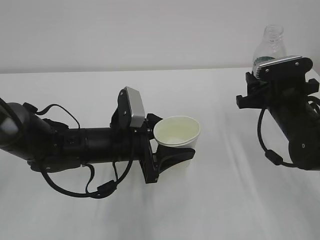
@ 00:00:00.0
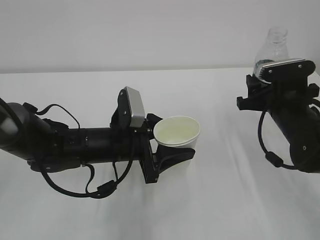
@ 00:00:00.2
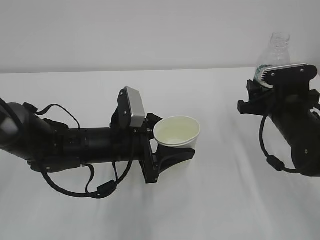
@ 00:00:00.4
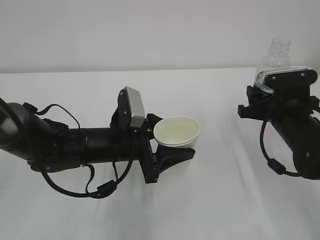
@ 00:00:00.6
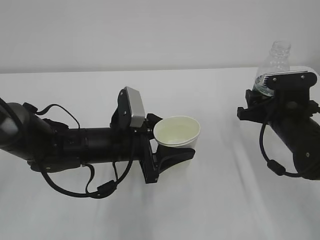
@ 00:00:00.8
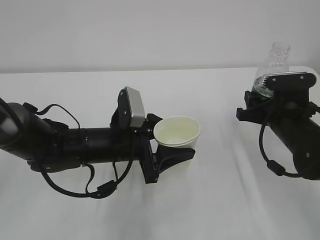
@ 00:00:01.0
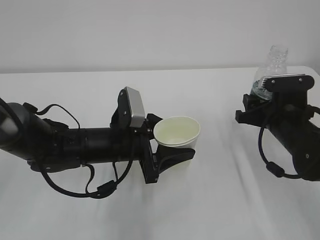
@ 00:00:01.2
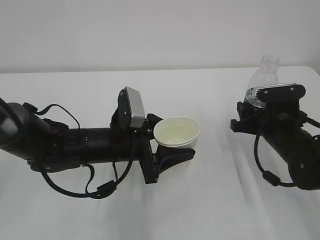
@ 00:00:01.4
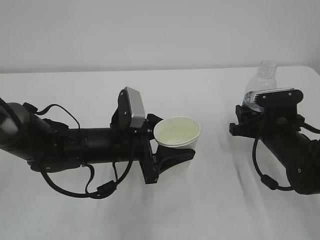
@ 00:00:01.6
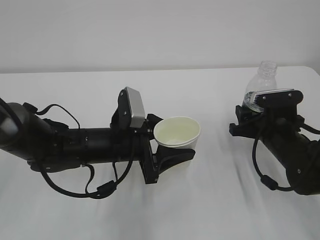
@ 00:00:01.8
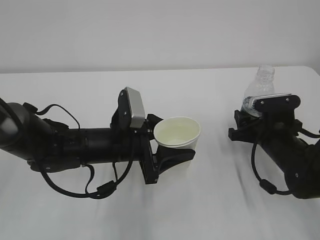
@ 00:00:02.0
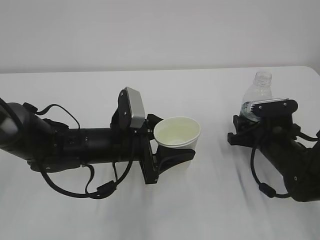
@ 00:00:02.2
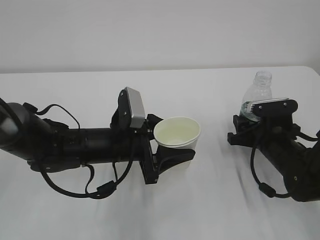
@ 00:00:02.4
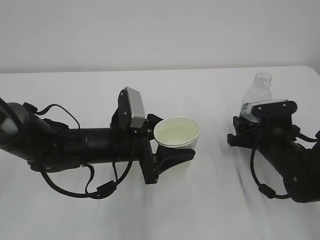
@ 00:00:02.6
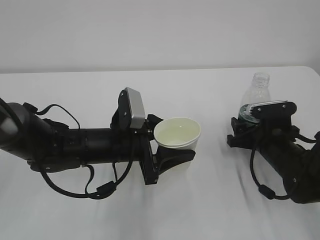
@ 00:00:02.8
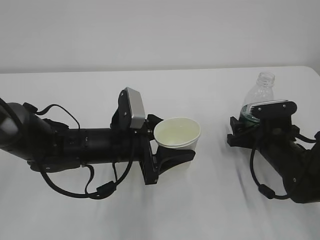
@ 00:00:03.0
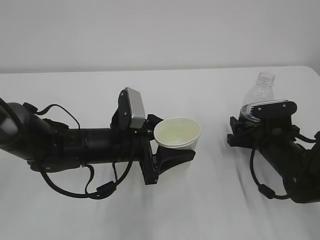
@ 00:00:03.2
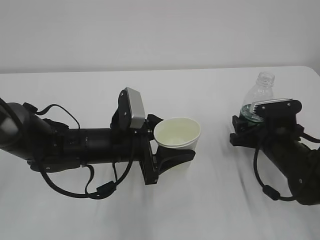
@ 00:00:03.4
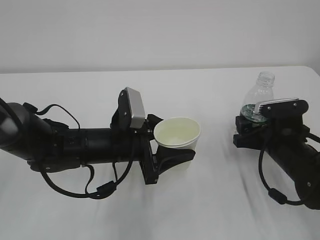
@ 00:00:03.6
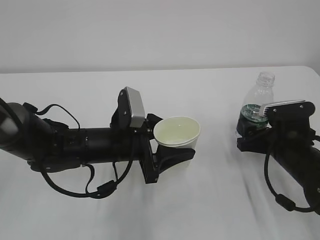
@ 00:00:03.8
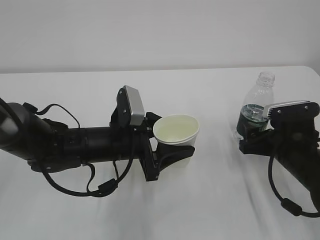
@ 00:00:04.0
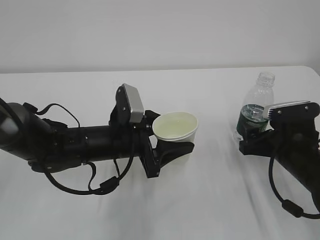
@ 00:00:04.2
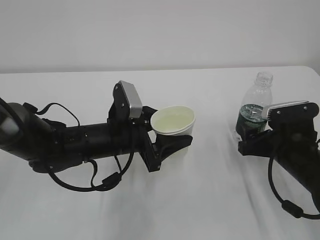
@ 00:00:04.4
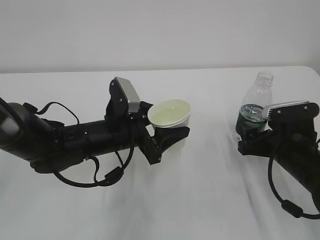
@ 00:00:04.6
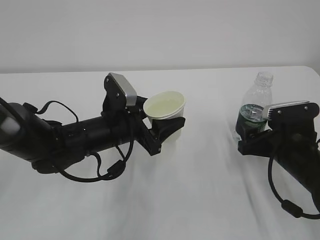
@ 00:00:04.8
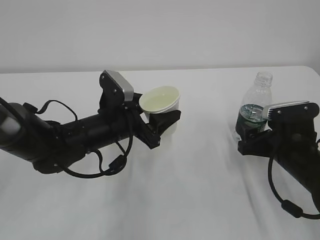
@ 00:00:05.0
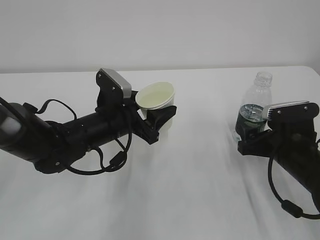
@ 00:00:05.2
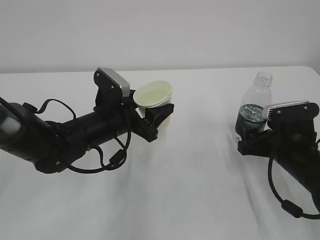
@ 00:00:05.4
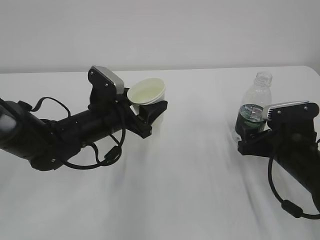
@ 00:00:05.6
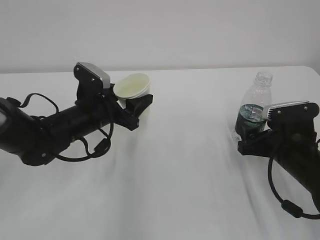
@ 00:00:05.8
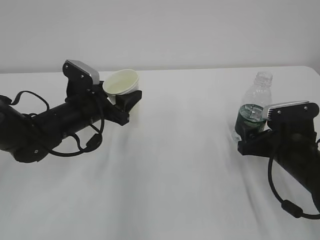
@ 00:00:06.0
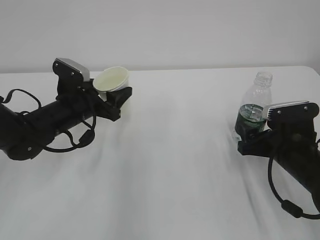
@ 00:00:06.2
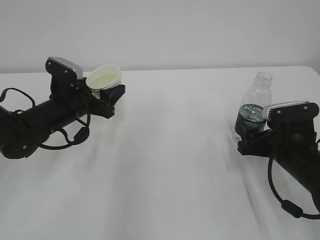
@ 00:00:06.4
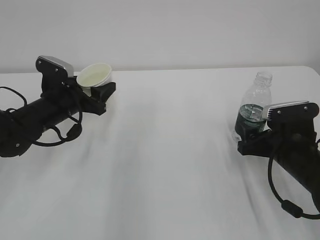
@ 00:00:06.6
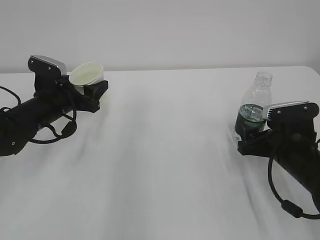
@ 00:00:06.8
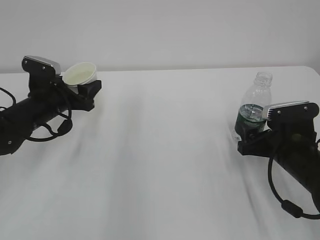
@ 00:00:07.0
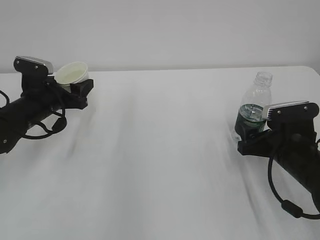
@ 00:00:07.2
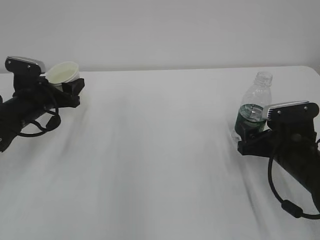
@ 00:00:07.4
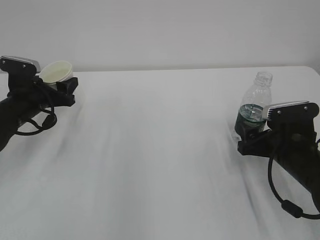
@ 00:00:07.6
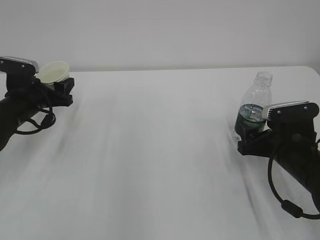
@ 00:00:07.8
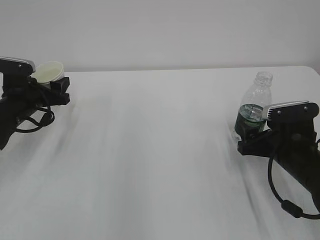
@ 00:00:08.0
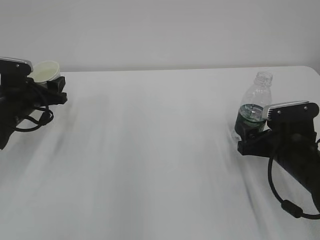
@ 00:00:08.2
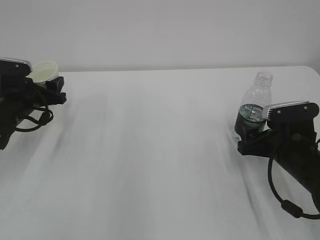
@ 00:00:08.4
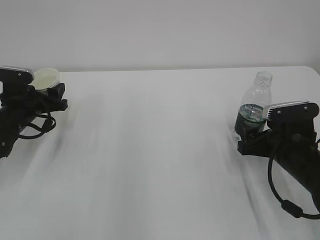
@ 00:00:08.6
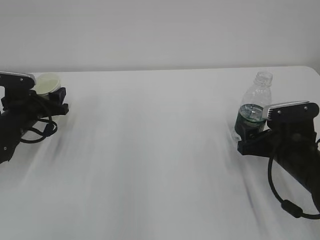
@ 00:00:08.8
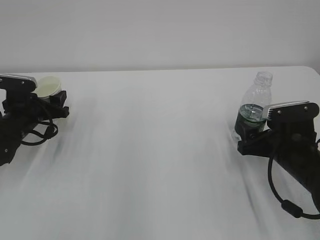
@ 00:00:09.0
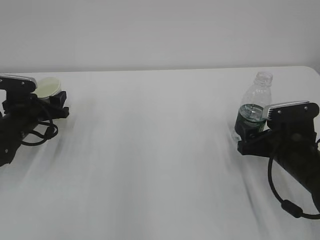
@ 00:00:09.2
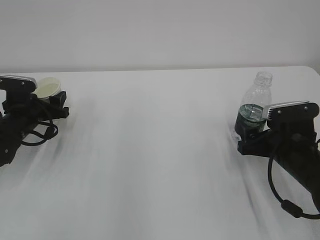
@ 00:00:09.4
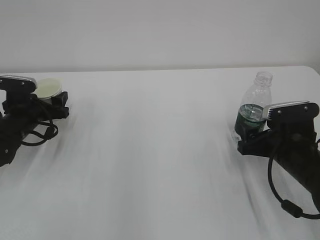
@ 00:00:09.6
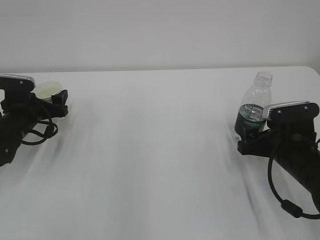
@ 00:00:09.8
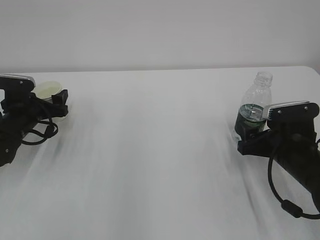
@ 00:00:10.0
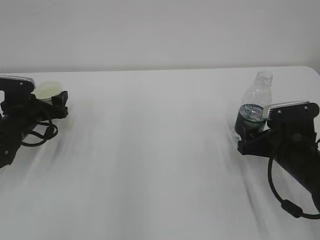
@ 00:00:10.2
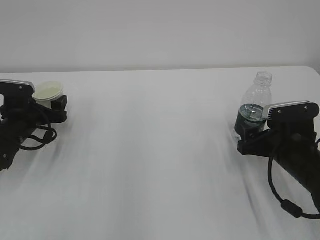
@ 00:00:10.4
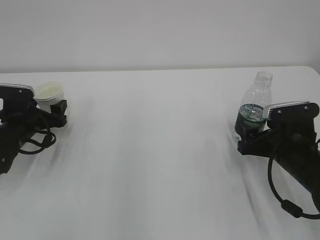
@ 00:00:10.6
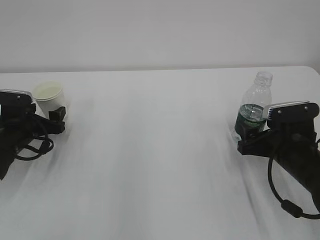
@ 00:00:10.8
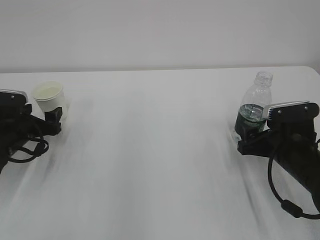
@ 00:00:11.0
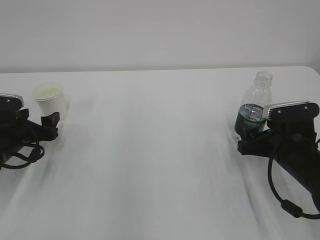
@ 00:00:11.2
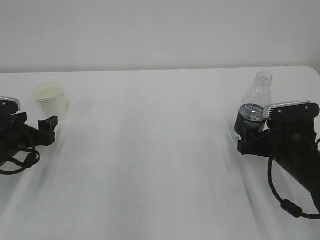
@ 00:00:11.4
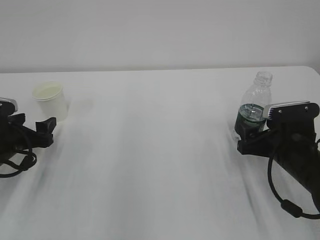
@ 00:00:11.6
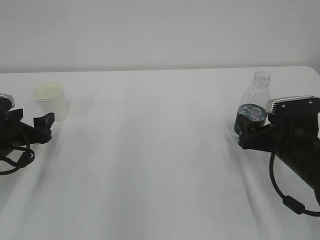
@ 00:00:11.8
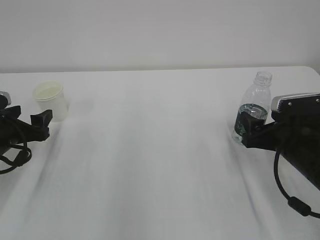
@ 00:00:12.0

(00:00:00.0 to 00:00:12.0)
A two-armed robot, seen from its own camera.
00:00:00.0 - 00:00:01.6: The right gripper is displaced downward by some 5 cm.
00:00:01.6 - 00:00:03.0: The right gripper opens.
00:00:03.0 - 00:00:04.4: The right gripper ends up roughly 5 cm from where it was.
00:00:04.4 - 00:00:06.0: The left gripper travels to the left and forward by approximately 10 cm.
00:00:06.0 - 00:00:07.6: The left gripper heads to the left, covering approximately 10 cm.
00:00:07.6 - 00:00:09.0: The grippers make only small movements.
00:00:09.0 - 00:00:10.4: The left gripper opens up.
00:00:10.4 - 00:00:12.0: The left gripper goes approximately 10 cm backward.

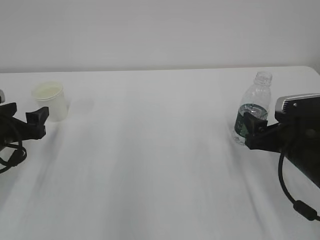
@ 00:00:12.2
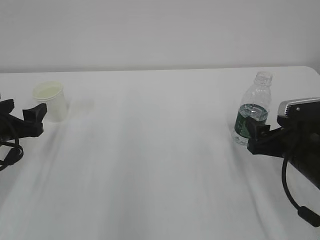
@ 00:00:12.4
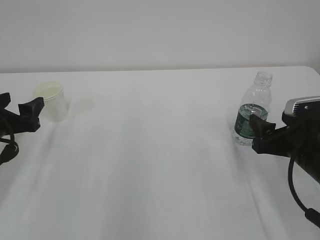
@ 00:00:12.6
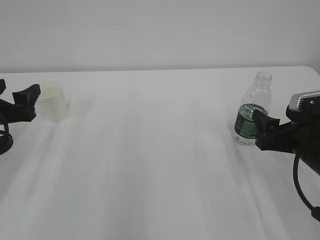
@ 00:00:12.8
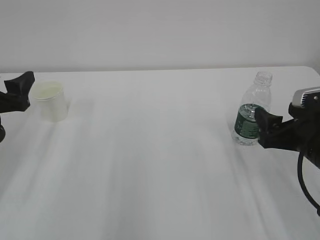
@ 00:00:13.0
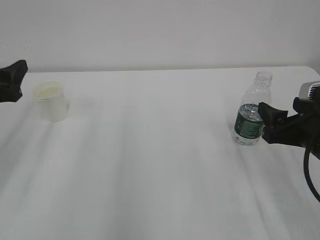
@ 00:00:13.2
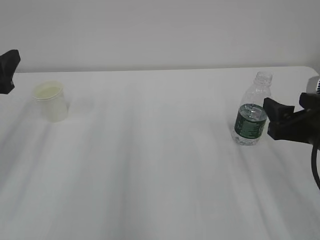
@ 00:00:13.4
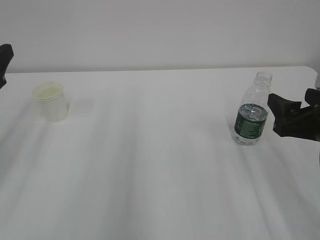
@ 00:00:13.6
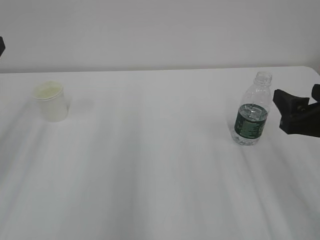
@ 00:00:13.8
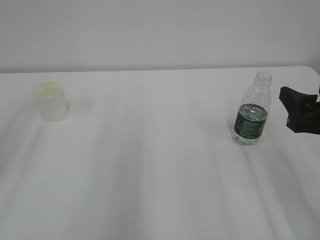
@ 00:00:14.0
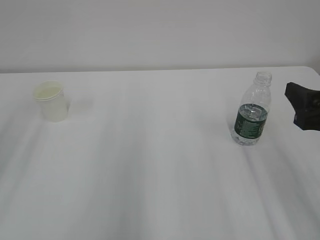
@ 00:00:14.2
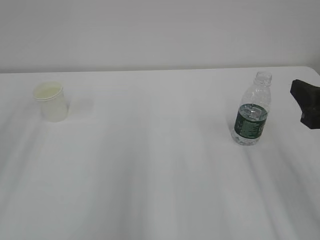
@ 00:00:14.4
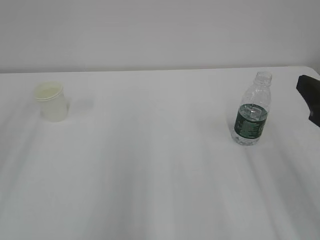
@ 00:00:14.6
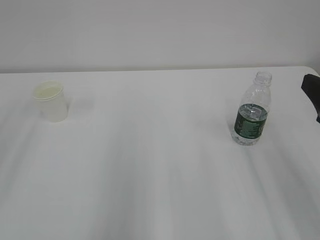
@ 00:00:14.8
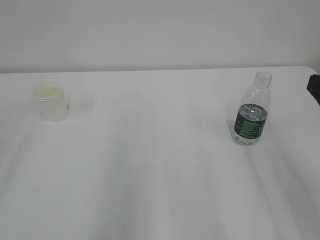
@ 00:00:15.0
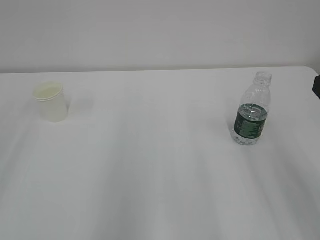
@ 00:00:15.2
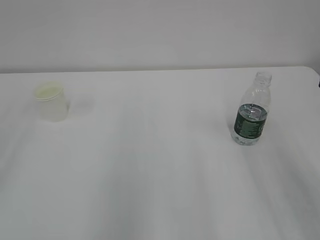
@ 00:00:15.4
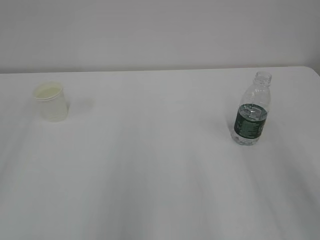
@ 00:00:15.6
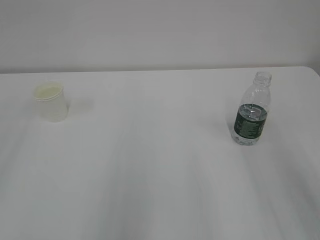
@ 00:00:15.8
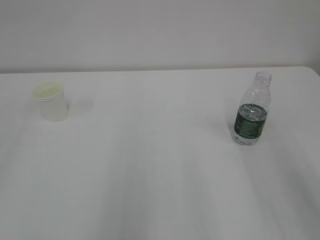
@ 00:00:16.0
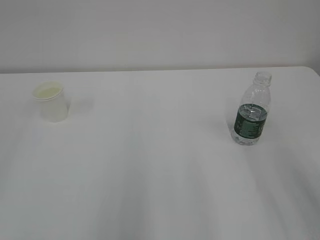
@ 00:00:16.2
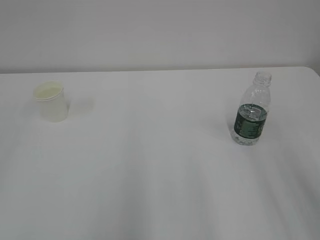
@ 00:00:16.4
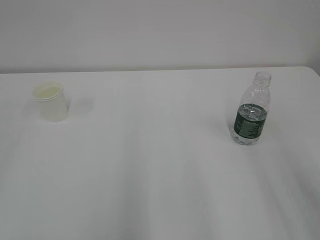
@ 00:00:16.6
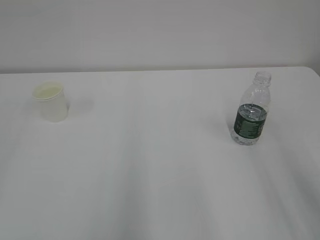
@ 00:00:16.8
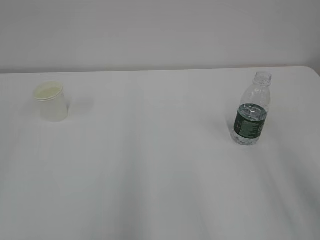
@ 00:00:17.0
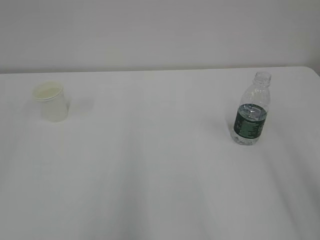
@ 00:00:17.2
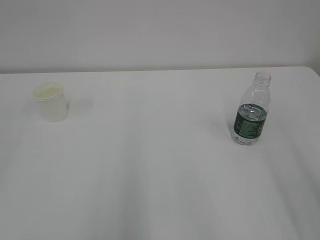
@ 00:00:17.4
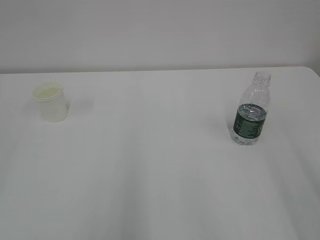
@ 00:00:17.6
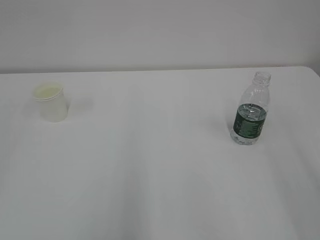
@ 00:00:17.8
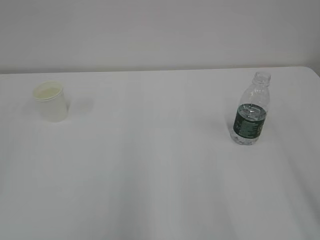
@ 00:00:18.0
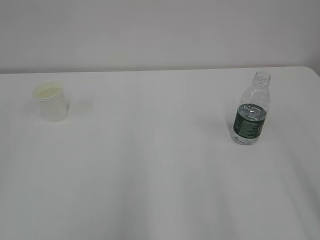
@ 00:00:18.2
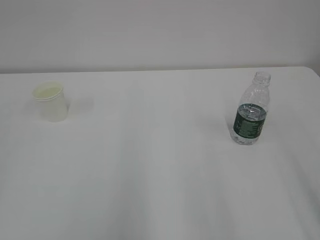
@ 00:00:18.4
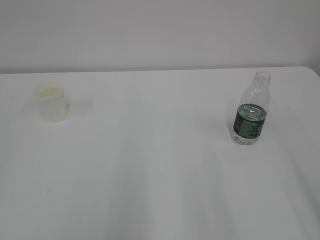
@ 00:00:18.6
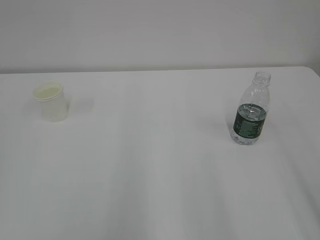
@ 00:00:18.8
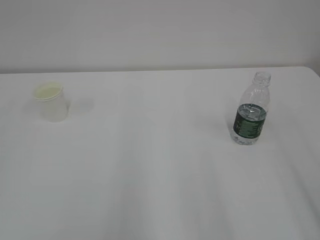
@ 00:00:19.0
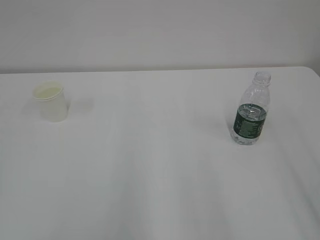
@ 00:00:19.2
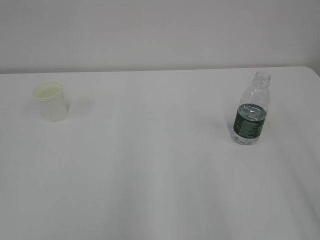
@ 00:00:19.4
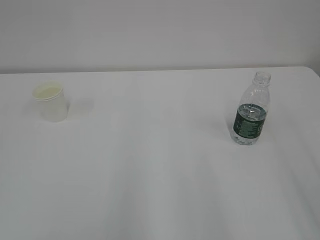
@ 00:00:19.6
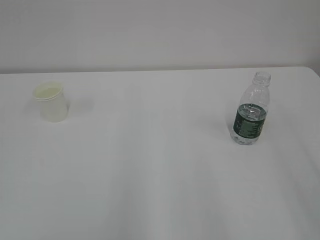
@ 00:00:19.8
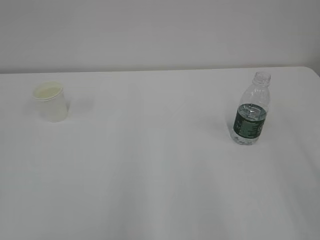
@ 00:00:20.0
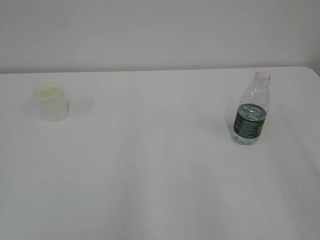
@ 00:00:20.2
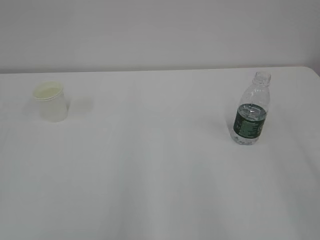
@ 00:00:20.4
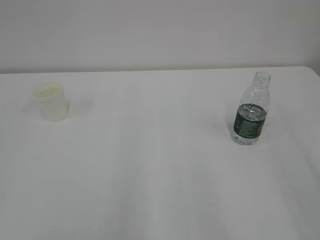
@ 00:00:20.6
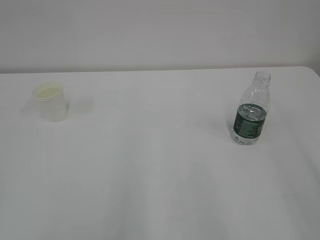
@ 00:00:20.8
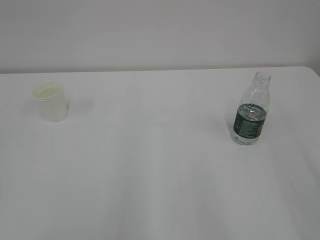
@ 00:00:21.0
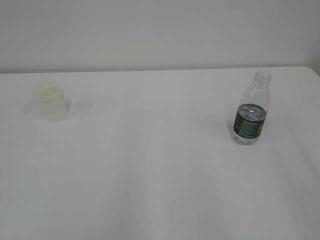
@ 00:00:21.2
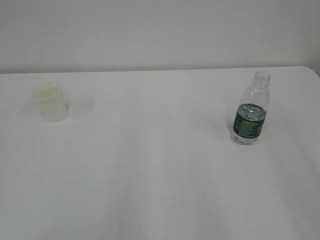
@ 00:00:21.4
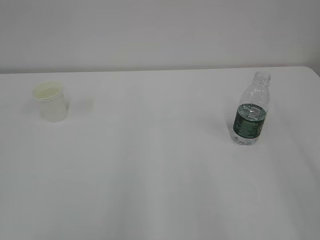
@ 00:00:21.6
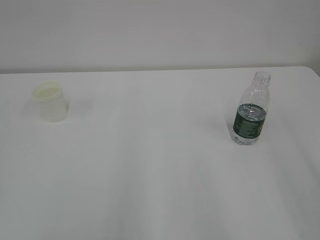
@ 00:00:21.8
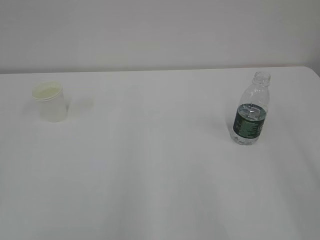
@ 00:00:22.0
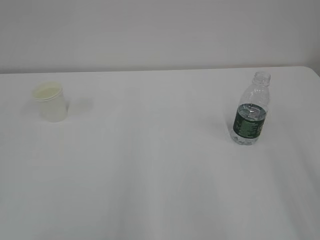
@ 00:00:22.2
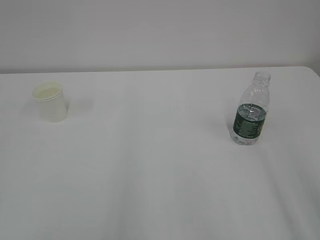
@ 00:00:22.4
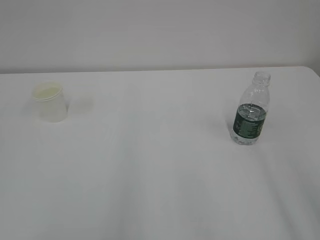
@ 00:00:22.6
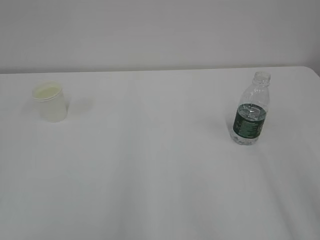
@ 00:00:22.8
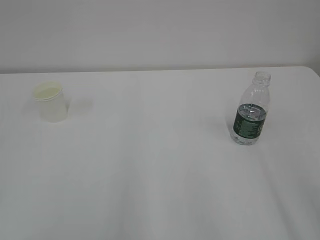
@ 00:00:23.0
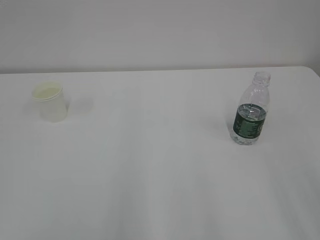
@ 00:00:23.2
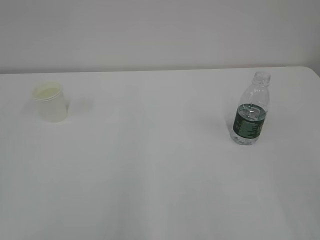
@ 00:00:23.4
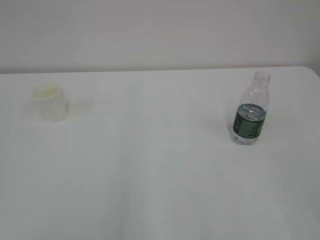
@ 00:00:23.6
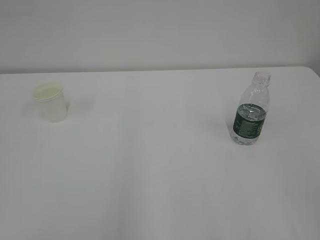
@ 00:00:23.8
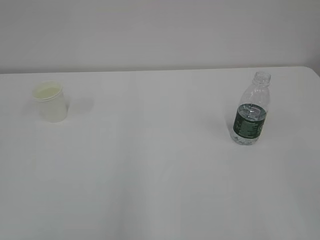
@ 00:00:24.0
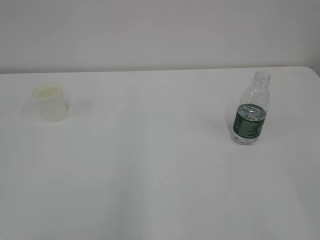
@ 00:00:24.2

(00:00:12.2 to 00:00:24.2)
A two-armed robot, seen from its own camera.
00:00:12.2 - 00:00:13.8: The right gripper goes about 10 cm upward, while the left gripper is displaced upward by roughly 15 cm.
00:00:13.8 - 00:00:15.2: The right gripper goes approximately 10 cm backward and upward.
